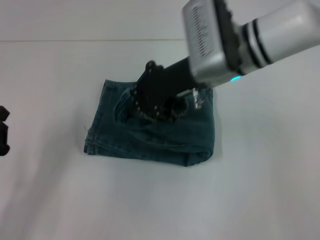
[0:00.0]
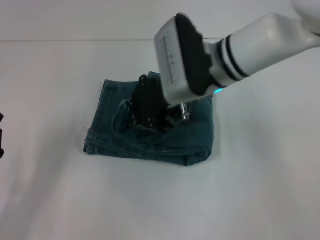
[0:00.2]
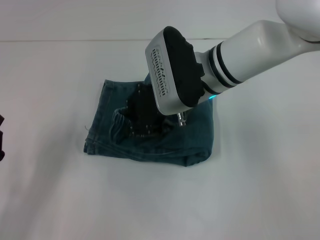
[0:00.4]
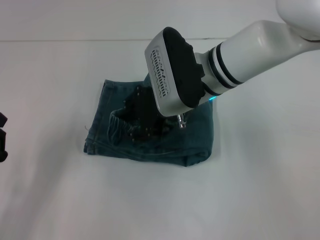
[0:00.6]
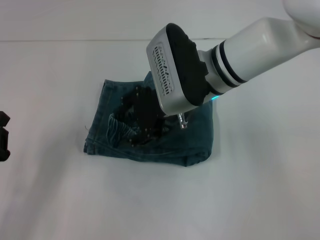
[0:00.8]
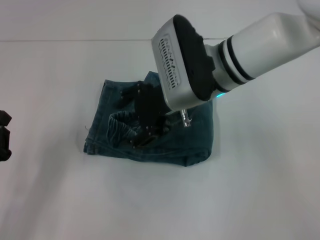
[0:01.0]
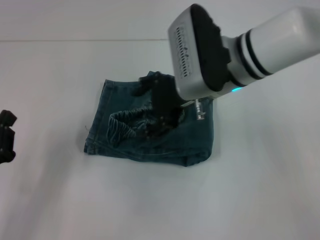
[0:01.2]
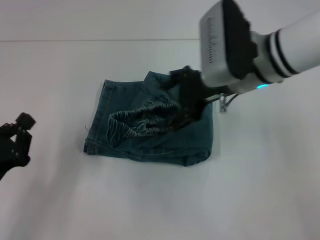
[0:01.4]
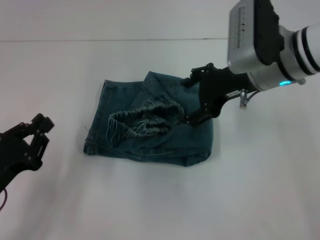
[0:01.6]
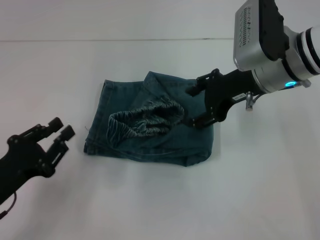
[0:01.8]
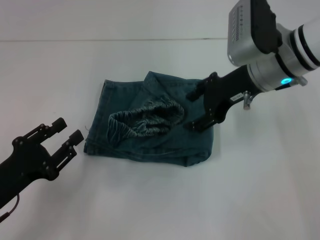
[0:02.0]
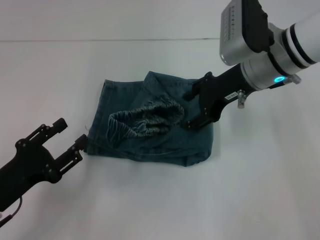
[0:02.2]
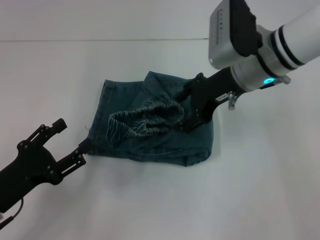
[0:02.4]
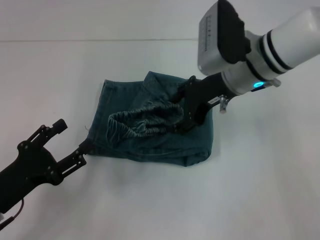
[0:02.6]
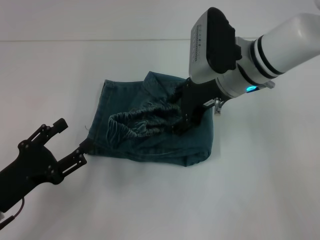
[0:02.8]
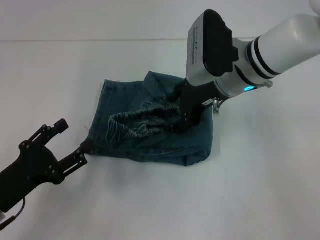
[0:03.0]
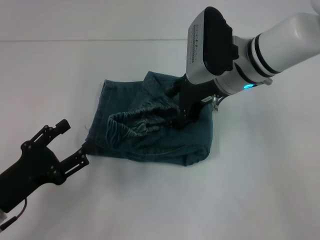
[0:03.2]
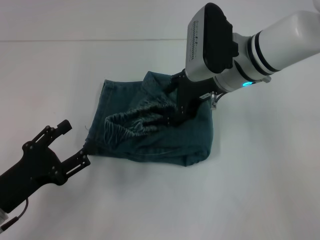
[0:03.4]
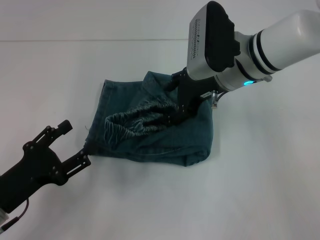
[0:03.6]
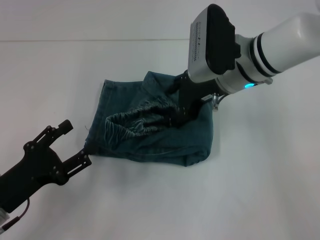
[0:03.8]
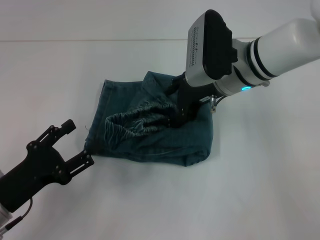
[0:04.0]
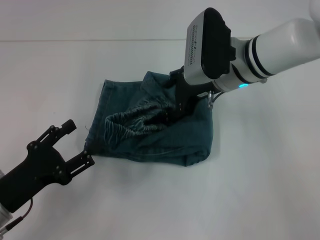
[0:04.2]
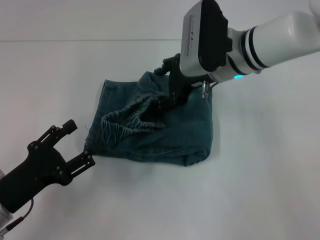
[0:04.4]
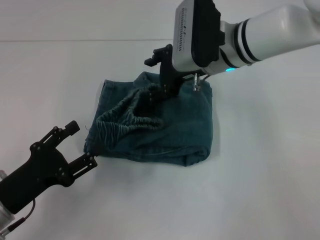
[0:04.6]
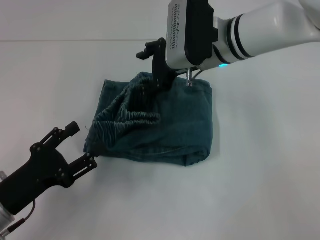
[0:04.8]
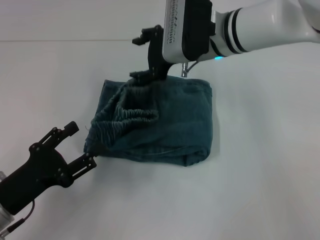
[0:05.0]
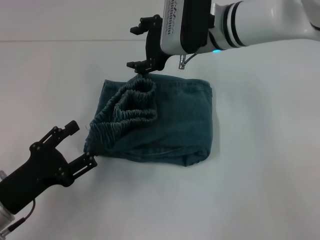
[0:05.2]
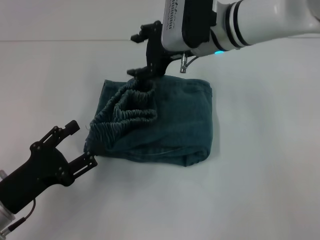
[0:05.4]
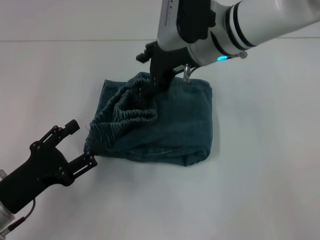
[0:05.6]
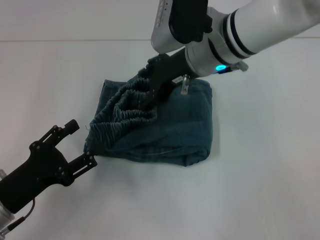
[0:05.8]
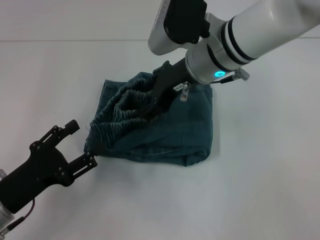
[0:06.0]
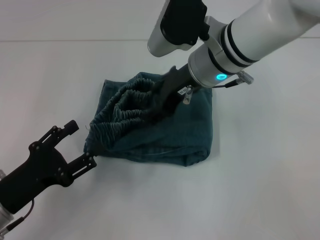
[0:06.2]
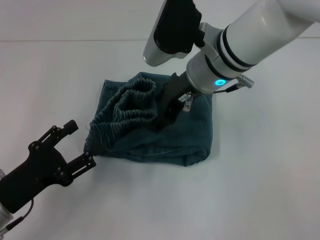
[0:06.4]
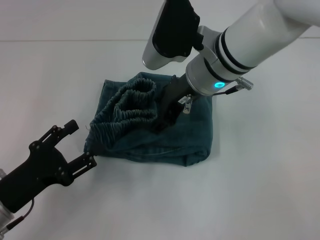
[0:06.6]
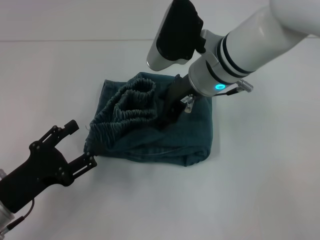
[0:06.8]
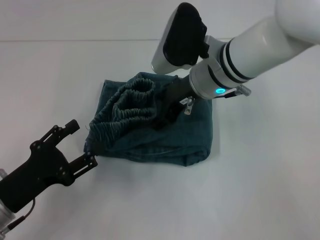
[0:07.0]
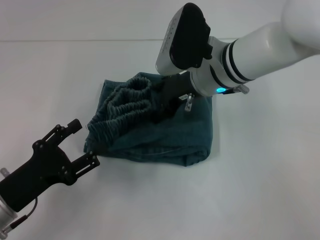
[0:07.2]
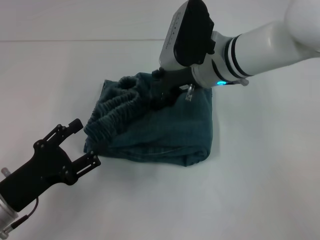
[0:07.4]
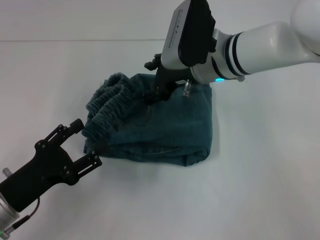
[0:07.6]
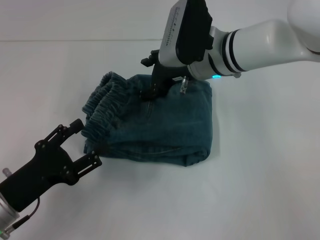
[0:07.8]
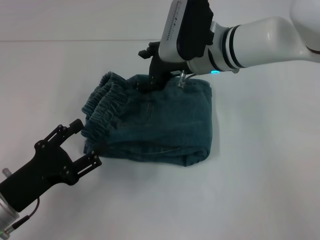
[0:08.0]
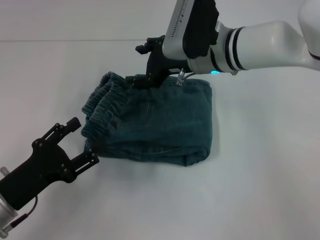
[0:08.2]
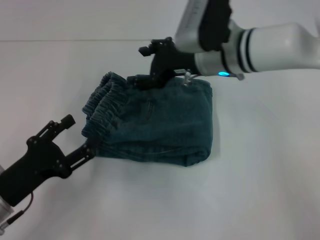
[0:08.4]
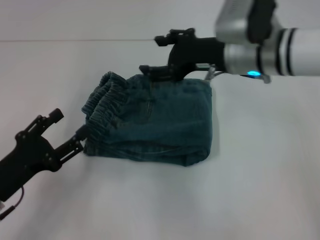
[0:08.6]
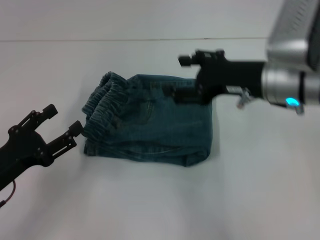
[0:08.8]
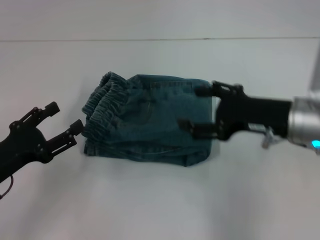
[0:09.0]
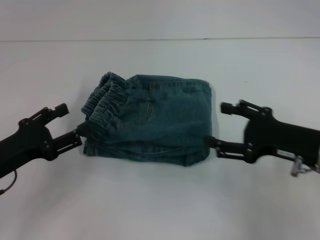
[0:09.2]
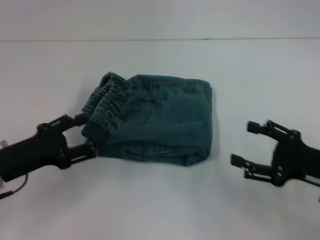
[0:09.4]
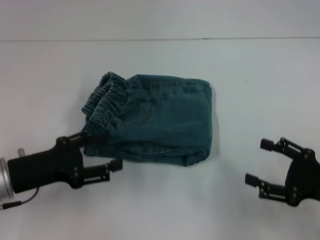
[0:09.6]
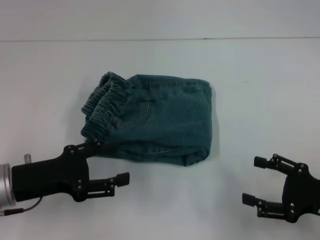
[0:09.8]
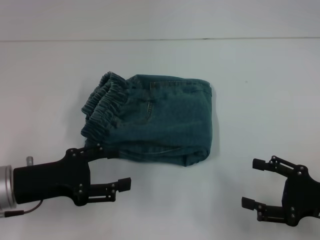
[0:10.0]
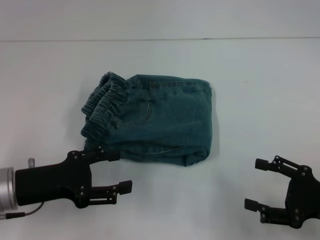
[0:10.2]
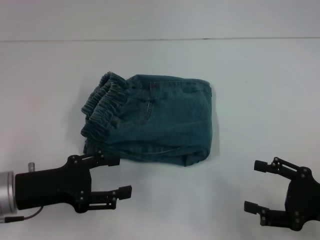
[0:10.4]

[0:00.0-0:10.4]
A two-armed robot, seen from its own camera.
Step, 0:00.0 to 0:00.8: Fold to the left with your right hand.
Step, 0:01.0 to 0:08.2: Adjust the pants with your right hand.
0:00.0 to 0:01.4: The right gripper opens.
0:01.4 to 0:03.0: The left gripper opens.
0:03.0 to 0:04.4: The grippers make only small movements.
0:04.4 to 0:06.0: The right gripper moves some 5 cm.
0:06.0 to 0:07.4: The grippers move only a little.
0:07.4 to 0:09.0: The right gripper heads to the right and backward, covering approximately 15 cm.
0:09.0 to 0:10.4: The right gripper heads backward, to the right and downward, covering roughly 15 cm.

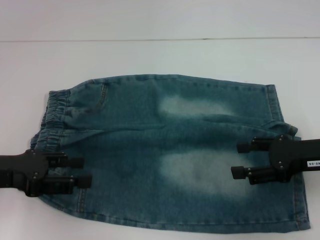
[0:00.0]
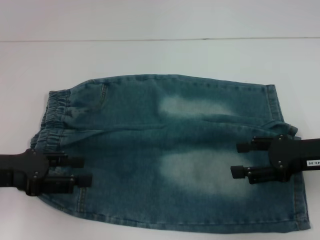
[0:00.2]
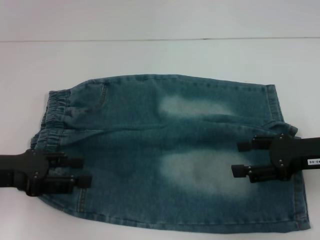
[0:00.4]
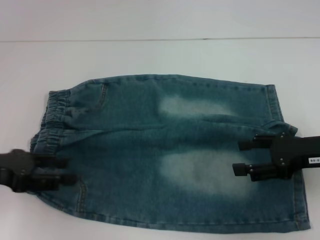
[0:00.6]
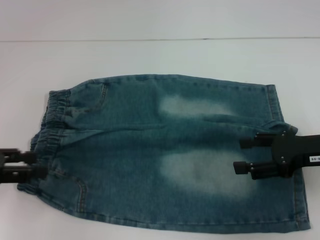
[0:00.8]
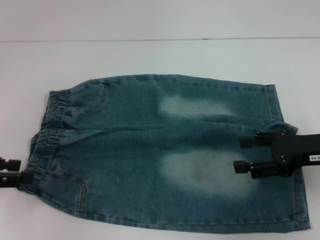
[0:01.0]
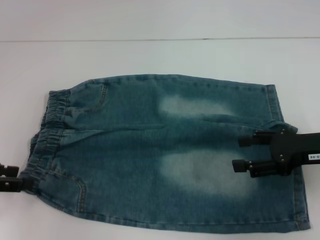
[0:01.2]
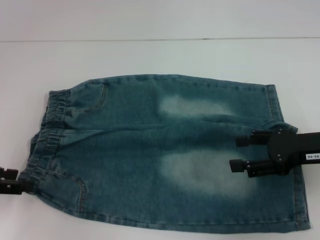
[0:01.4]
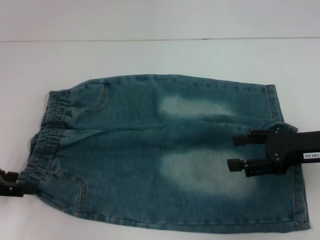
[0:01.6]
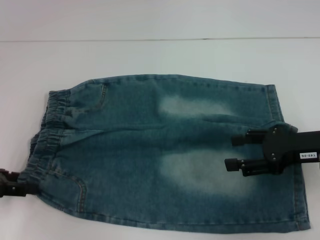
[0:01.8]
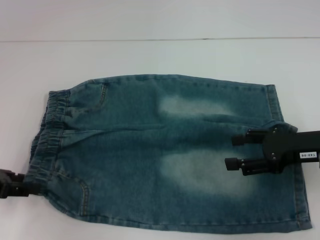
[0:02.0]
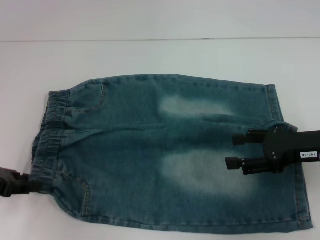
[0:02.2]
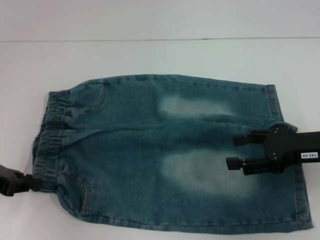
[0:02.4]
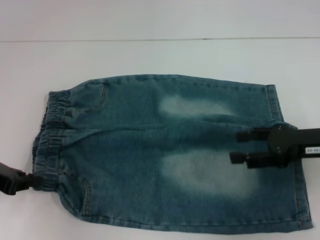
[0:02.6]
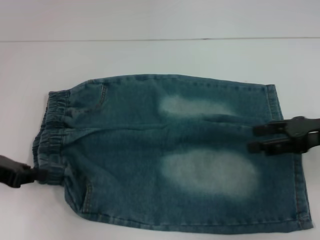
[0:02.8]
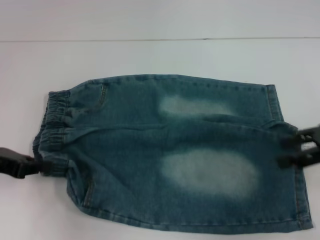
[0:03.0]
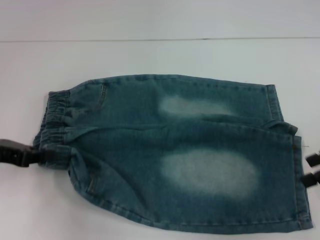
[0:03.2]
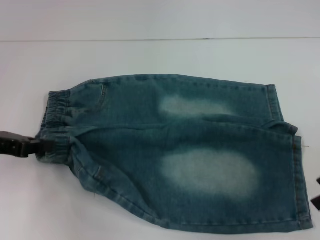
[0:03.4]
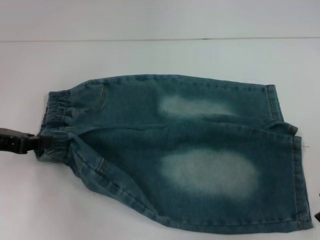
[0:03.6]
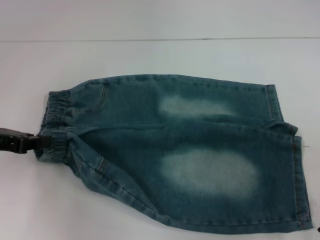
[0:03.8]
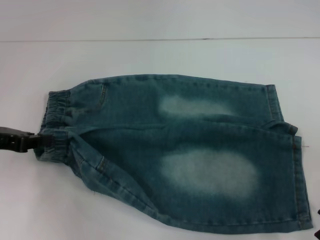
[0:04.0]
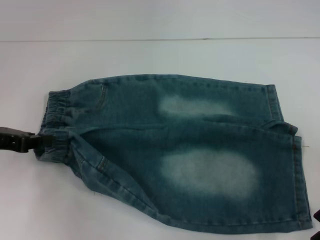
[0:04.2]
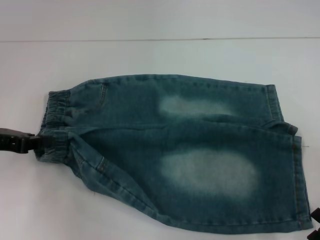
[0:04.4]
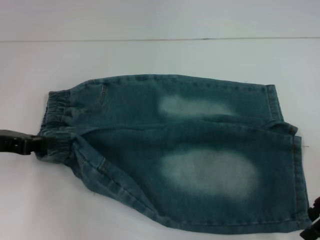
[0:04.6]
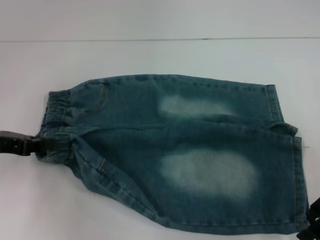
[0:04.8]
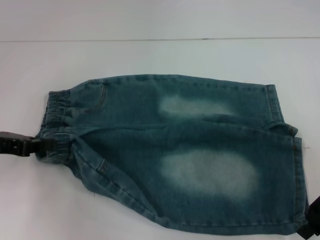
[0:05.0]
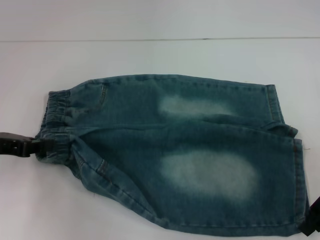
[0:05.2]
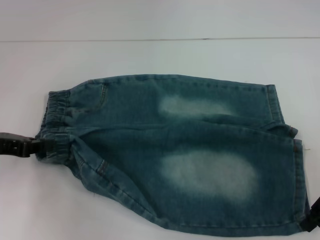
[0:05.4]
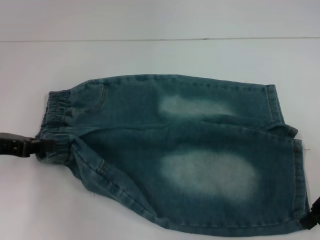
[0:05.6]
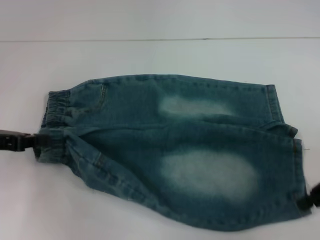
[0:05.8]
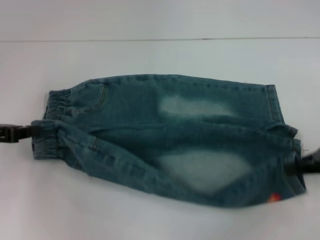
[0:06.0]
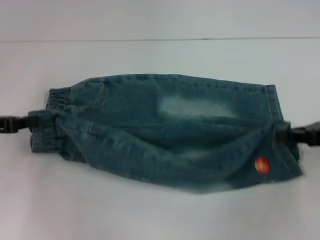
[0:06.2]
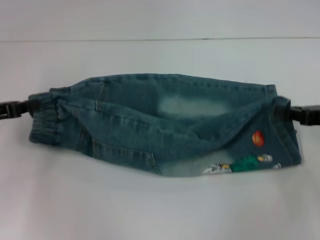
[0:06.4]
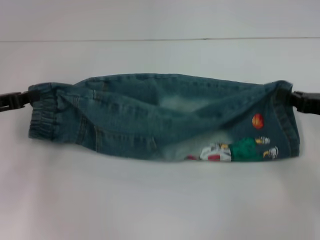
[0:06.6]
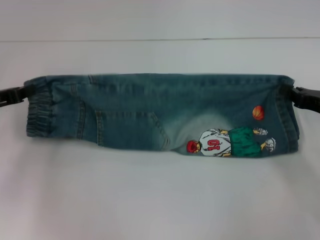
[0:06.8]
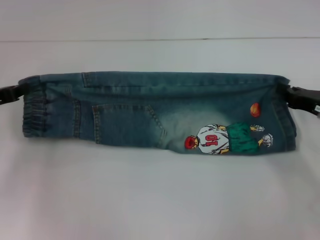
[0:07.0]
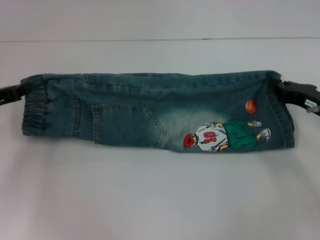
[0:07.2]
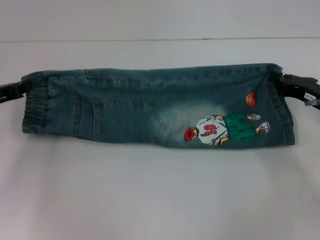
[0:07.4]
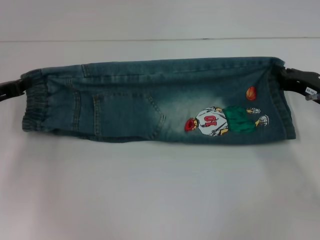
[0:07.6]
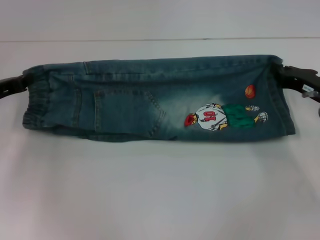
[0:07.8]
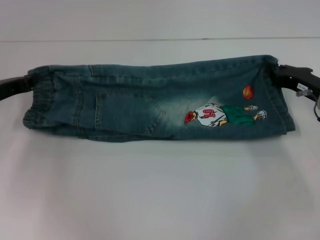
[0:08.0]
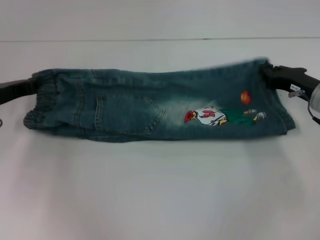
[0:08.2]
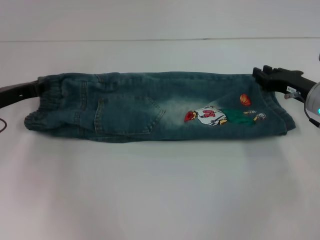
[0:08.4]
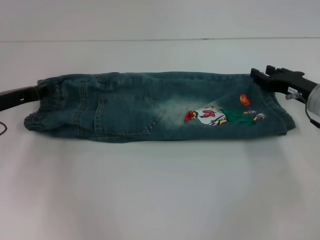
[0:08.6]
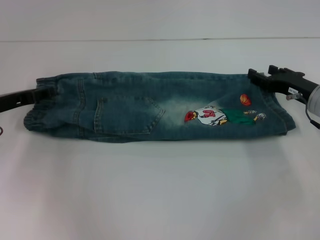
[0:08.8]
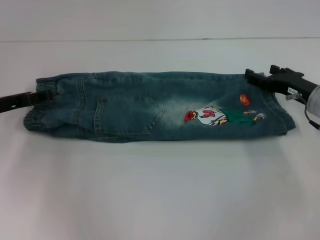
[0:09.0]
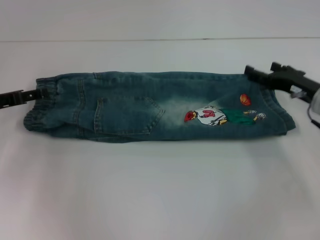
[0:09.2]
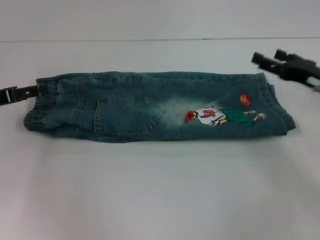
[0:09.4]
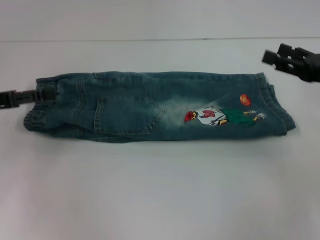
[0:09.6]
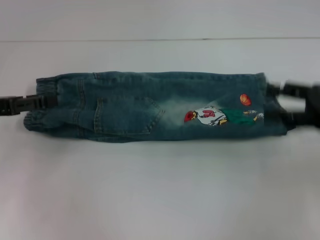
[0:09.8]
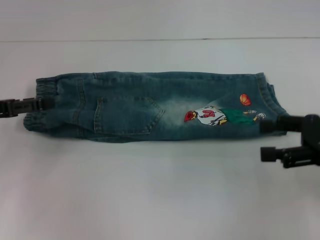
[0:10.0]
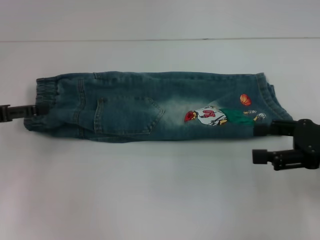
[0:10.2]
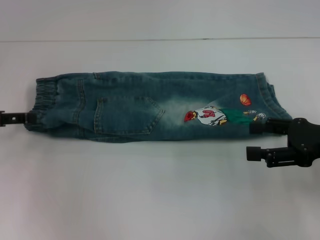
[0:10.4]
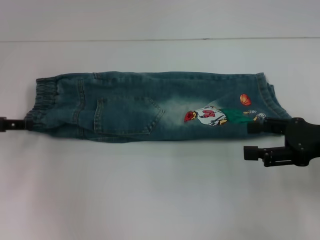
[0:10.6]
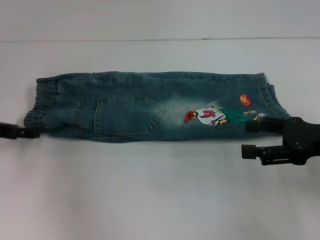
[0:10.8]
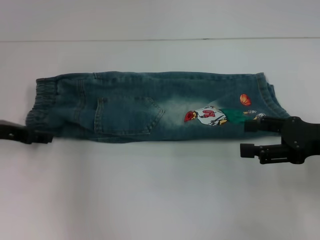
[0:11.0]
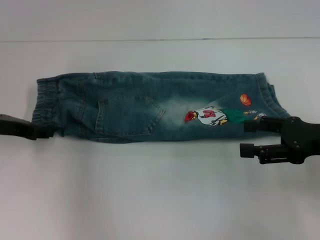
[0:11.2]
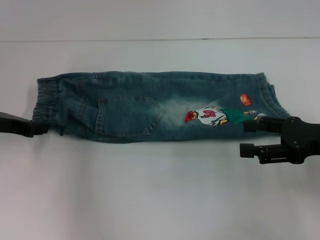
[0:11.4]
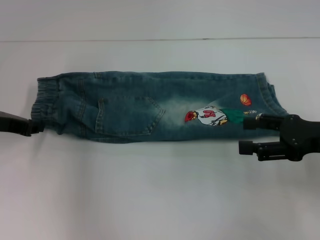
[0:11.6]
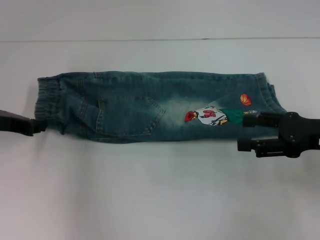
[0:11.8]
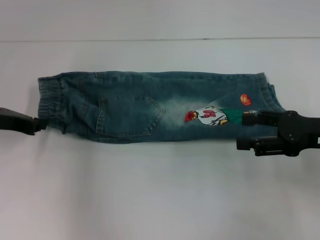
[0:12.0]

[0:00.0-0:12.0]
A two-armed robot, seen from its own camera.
Step, 0:00.0 to 0:02.2: Hold the lower left waistband with your left hand.
Step, 0:02.4 to 0:05.4: Grab the lower right pant leg with your right hand.
Step, 0:05.6 to 0:08.8: Fold upward with your right hand.
Step, 0:09.0 to 0:11.2: Hold the waistband with your left hand.
0:00.0 to 0:01.6: The left gripper is displaced to the left by roughly 5 cm.
0:01.6 to 0:03.0: The left gripper closes up, while the right gripper travels upward by some 5 cm.
0:04.4 to 0:06.0: The right gripper closes up.
0:06.0 to 0:07.6: The right gripper shifts some 5 cm downward; the left gripper moves approximately 5 cm.
0:07.6 to 0:09.0: The left gripper opens up, while the right gripper opens up.
0:09.0 to 0:10.4: The left gripper shifts by some 5 cm. The right gripper shifts about 10 cm backward and upward.
0:10.4 to 0:12.0: The left gripper travels to the right by approximately 5 cm, and closes its fingers.
